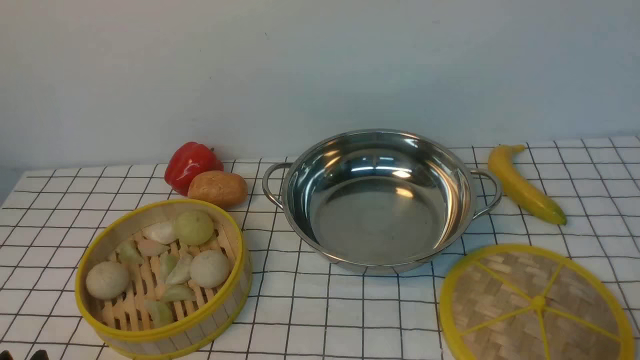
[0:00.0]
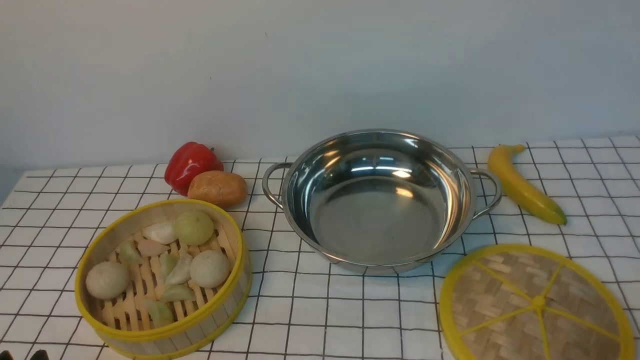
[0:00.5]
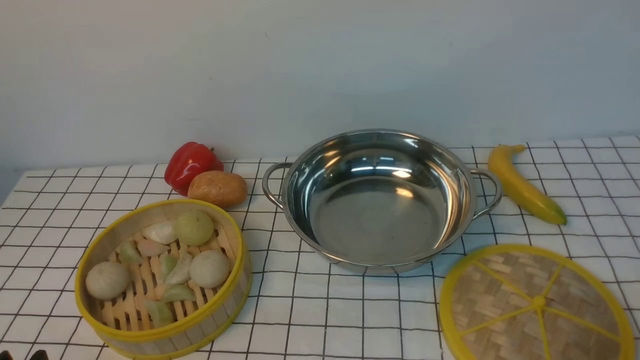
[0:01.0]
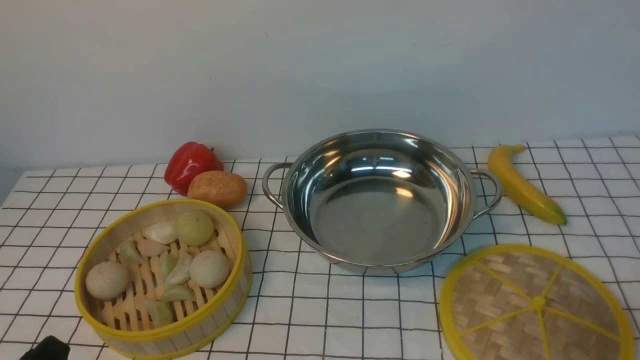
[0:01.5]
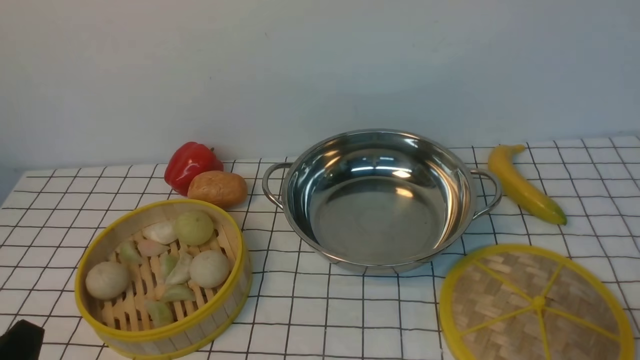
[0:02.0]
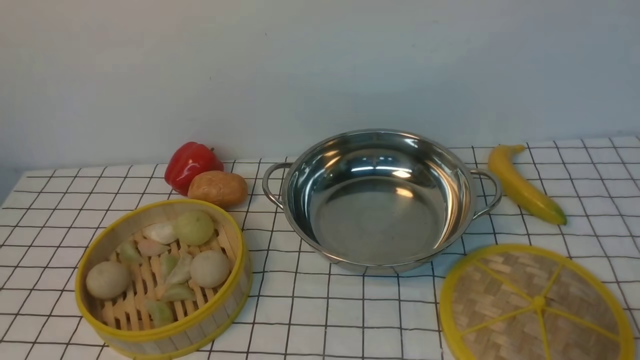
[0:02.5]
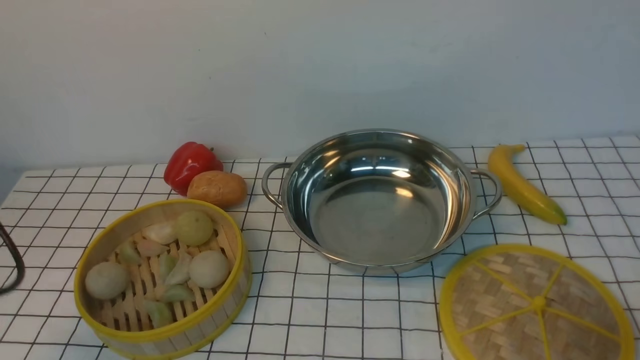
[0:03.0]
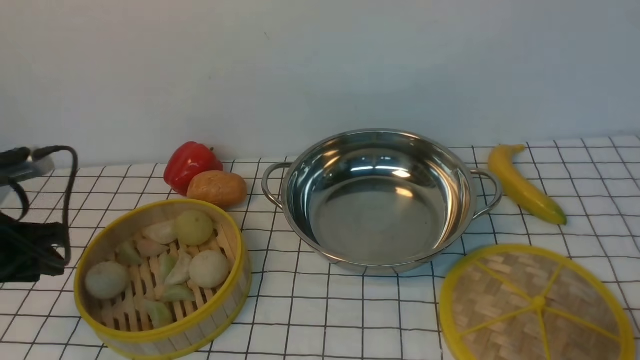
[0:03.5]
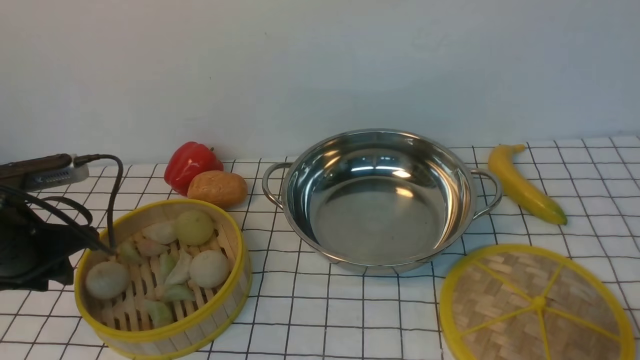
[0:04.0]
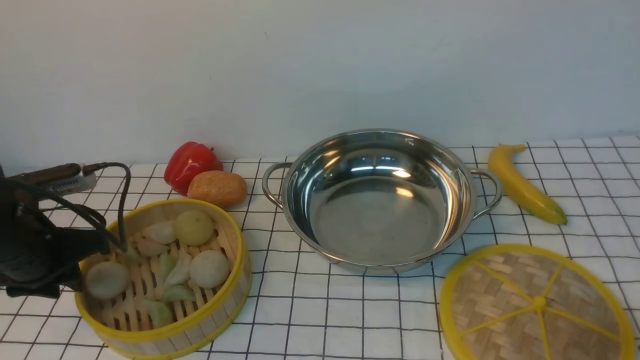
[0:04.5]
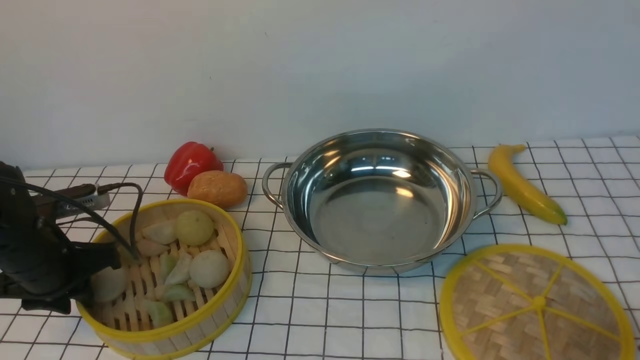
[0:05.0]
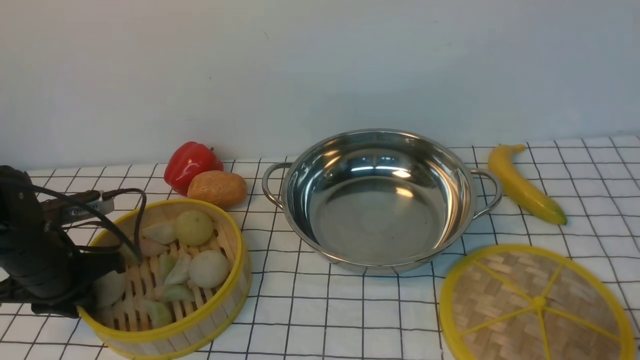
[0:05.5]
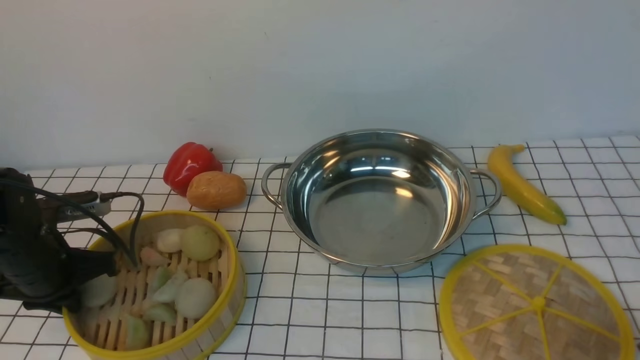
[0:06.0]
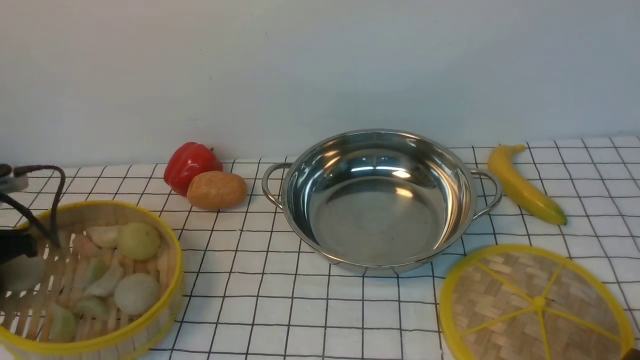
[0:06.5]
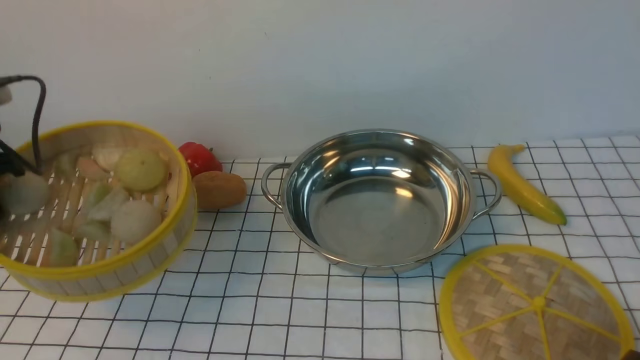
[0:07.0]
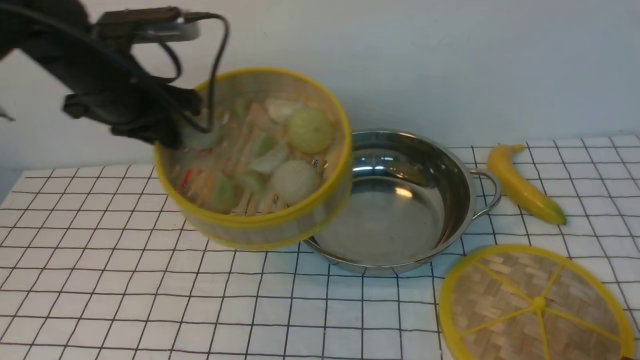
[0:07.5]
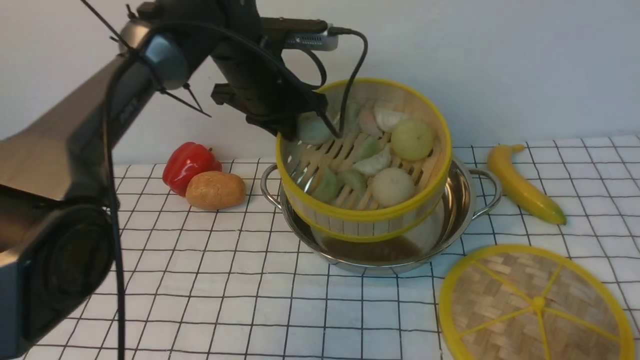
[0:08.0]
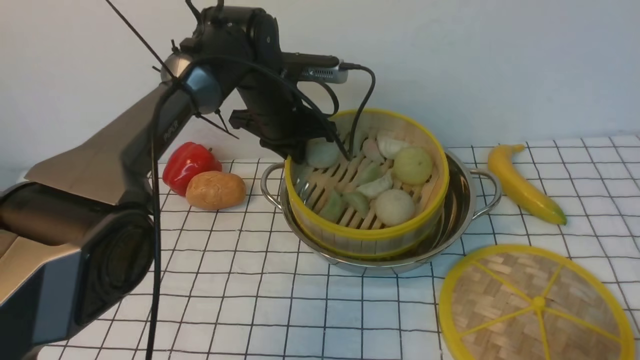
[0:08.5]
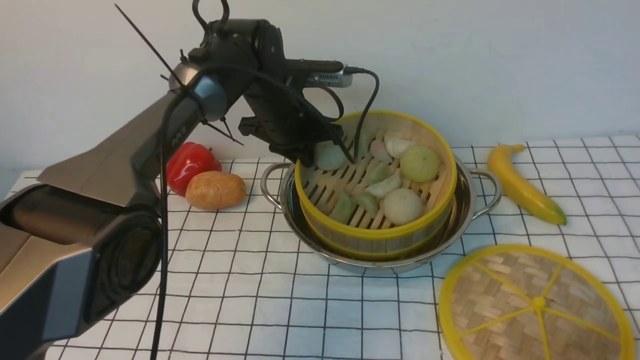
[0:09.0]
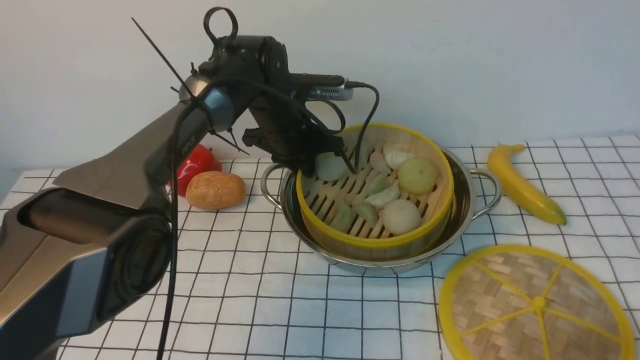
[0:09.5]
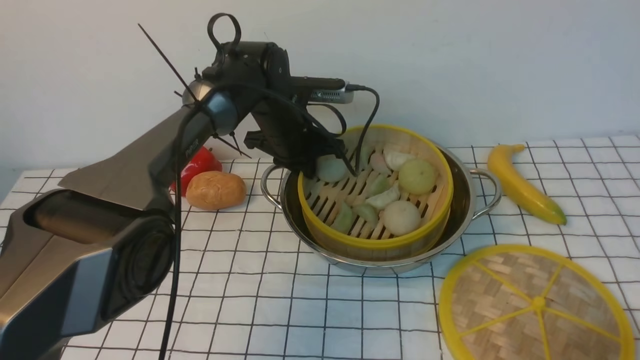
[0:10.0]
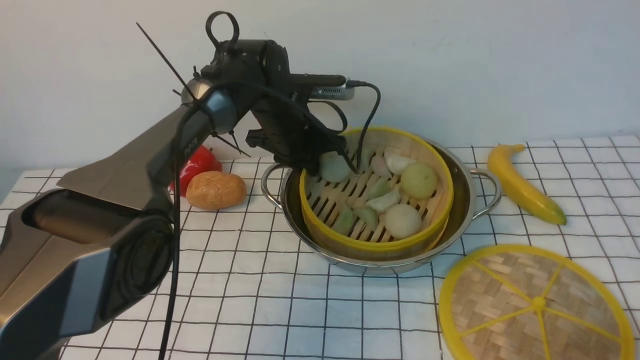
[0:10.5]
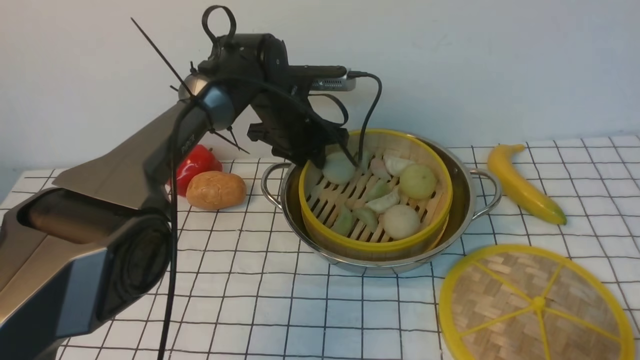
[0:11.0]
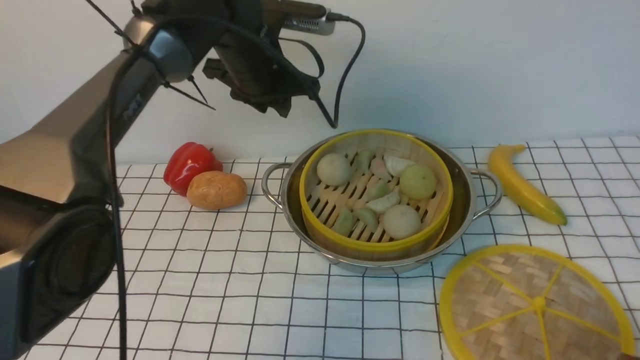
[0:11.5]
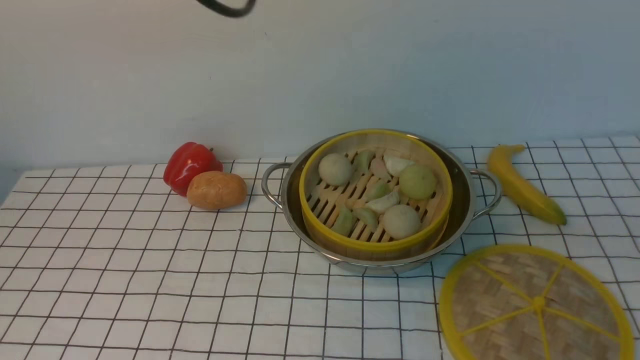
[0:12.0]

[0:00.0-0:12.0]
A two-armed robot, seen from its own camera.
Task of the whole recording: place the steamer in the pot on the white tablecloth, and put the lid on the steamer.
Step, 0:00.0 to 0:06.0: use the left arm to lift the steamer closest to it.
Step, 0:07.0 to 0:11.0: use the left arm to put the steamer into the iron steamer pot in the middle.
0:02.0 to 0:04.0: The left gripper heads forward, covering some 20 cm.
0:04.0 to 0:06.0: The left gripper goes about 5 cm downward, and closes its fingers.
0:06.0 to 0:08.0: The left gripper travels to the right, forward and upward by roughly 30 cm.
0:08.0 to 0:10.0: The left gripper shifts some 10 cm downward.
0:10.0 to 0:12.0: The right gripper moves upward, approximately 10 cm. Meanwhile the left gripper travels upward and backward by some 35 cm, and opens, then closes again.

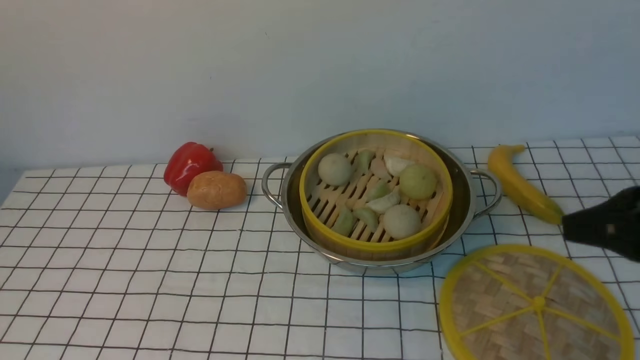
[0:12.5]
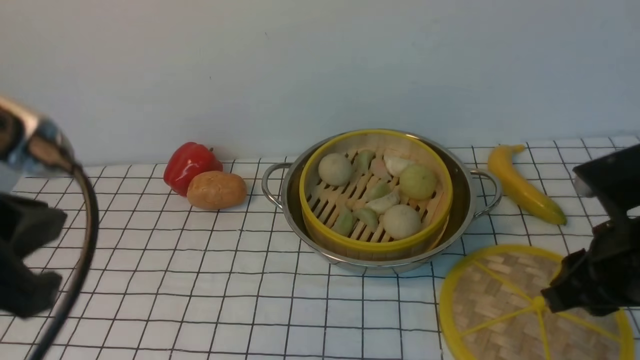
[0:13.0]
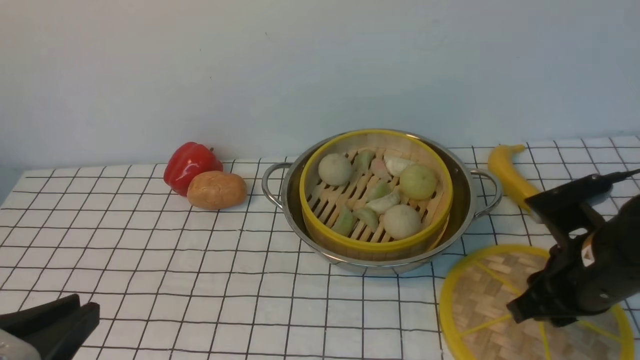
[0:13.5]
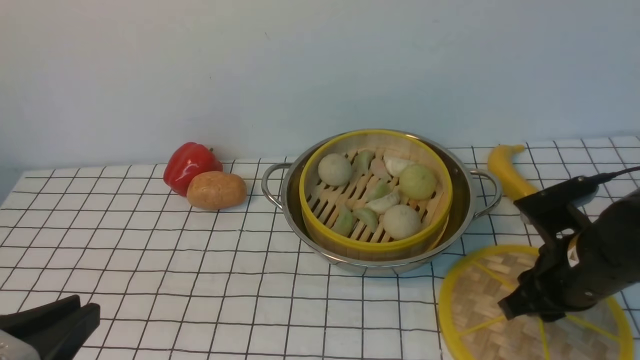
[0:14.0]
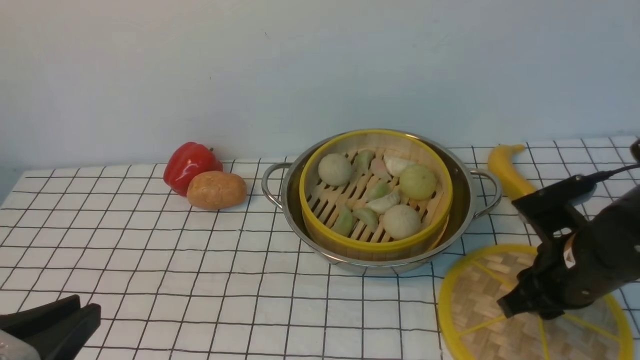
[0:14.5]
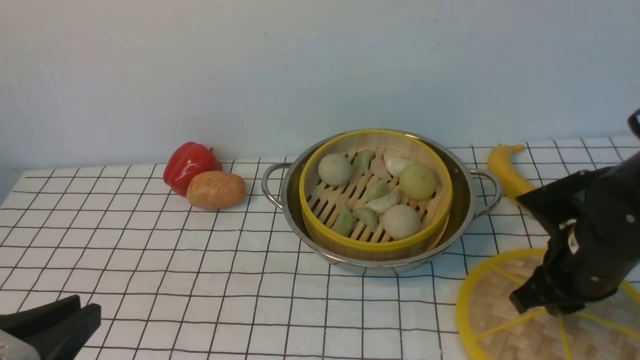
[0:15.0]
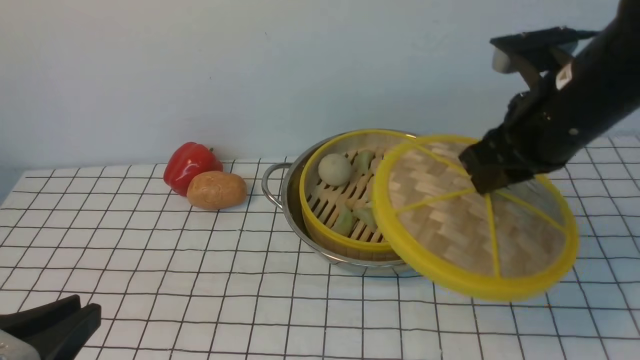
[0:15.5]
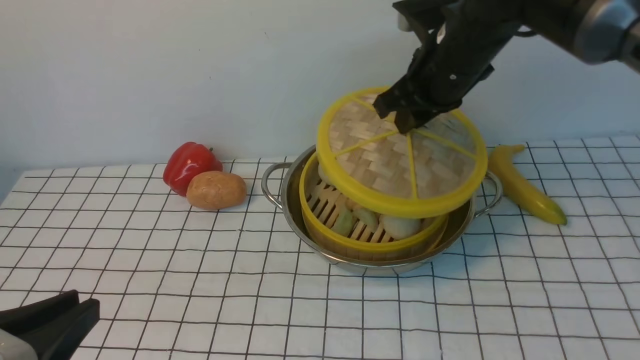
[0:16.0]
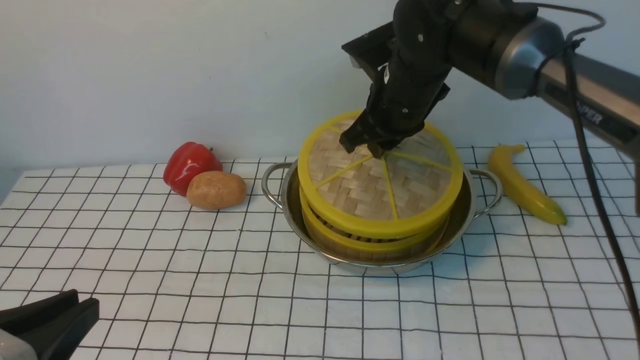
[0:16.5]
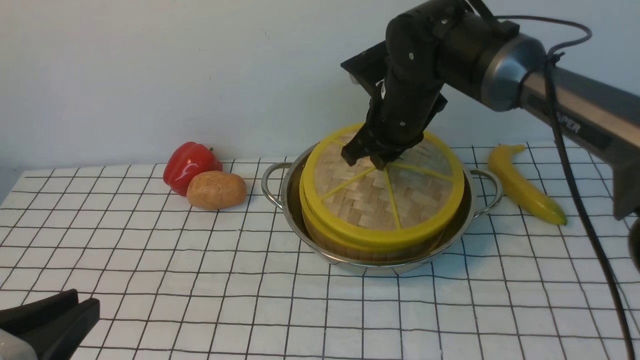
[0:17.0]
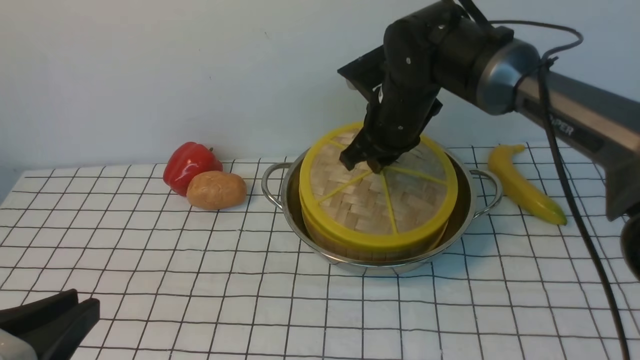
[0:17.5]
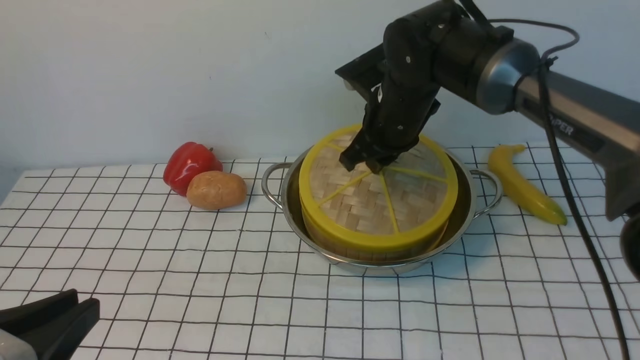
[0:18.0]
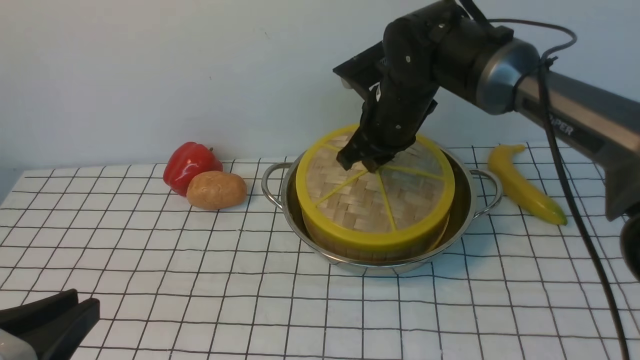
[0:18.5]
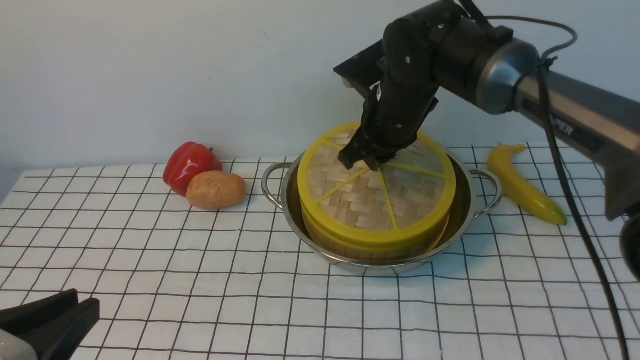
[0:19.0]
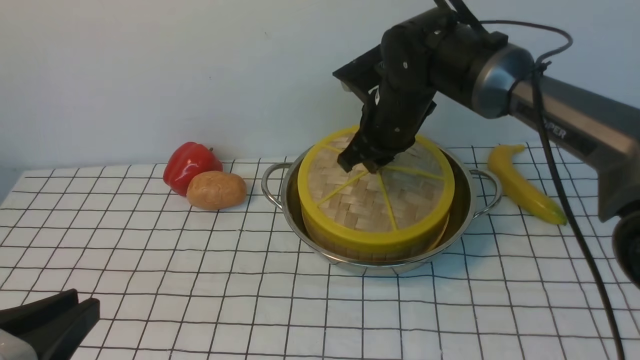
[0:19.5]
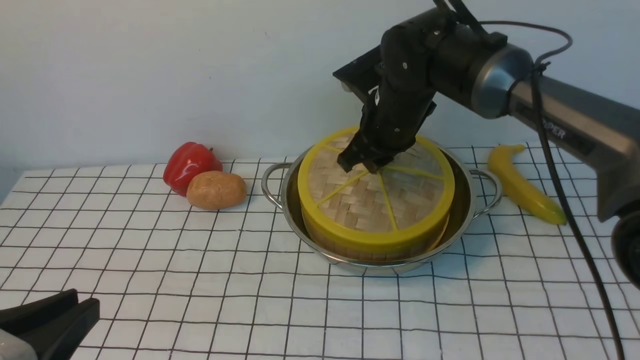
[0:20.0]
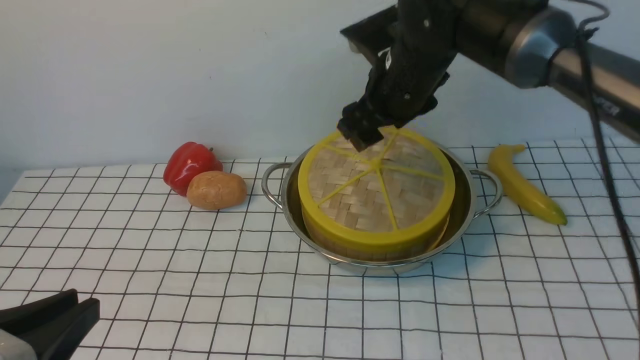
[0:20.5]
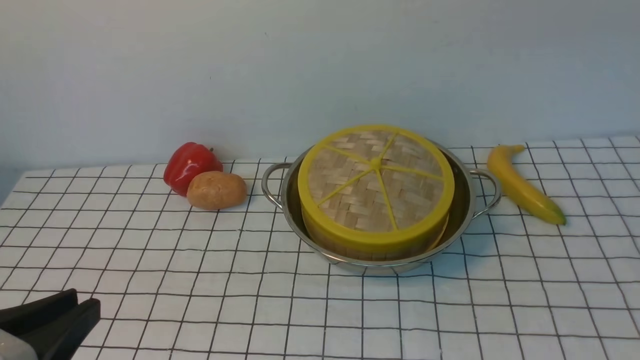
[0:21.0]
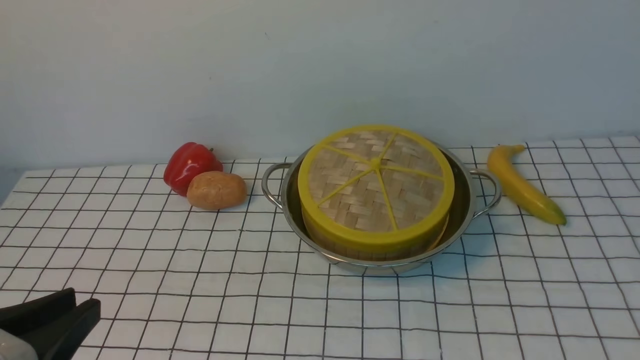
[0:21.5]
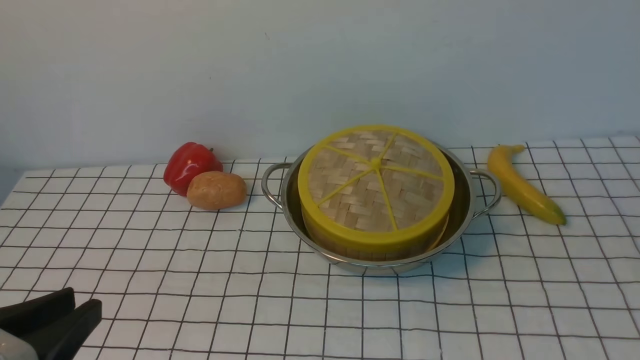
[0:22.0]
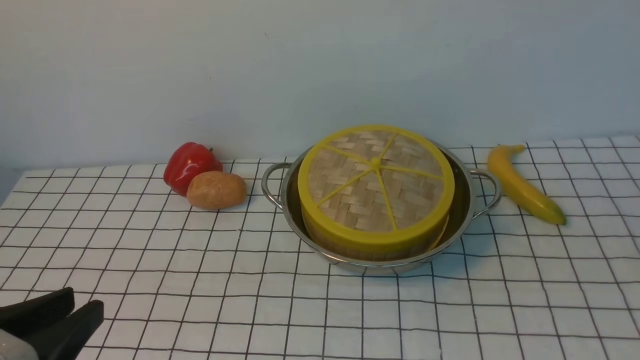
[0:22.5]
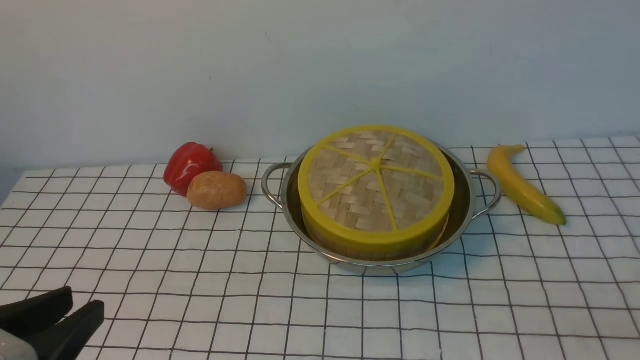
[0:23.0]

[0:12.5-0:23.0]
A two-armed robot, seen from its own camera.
Task of the whole recording: place the steamer in the pot on the white tablecloth, and put the lid on the steamer.
Step, 0:12.5 to 0:15.0: use the right arm to lift the lid of the steamer.
Step, 0:15.5 to 0:20.5: use the right arm to place the steamer lid on the steamer.
0:12.5 to 0:14.5: The left gripper heads downward and backward, covering some 30 cm; the right gripper travels downward and forward by some 15 cm.
0:14.5 to 0:16.5: The right gripper moves forward, to the left and upward, about 25 cm.
0:16.5 to 0:19.0: The grippers make only small movements.
0:19.0 to 0:21.0: The right gripper heads upward, backward and to the right, covering about 40 cm, and opens, then closes once more.
